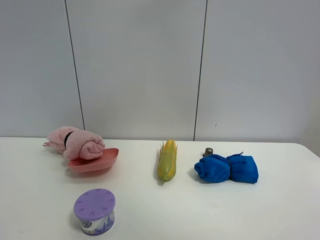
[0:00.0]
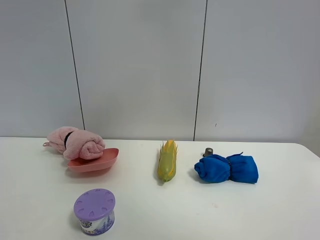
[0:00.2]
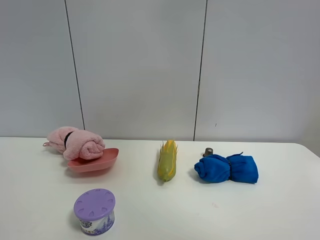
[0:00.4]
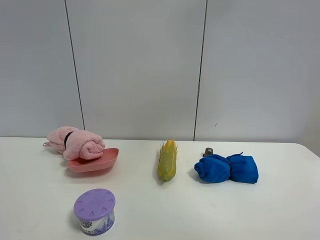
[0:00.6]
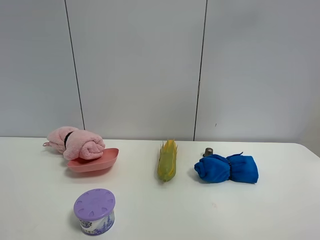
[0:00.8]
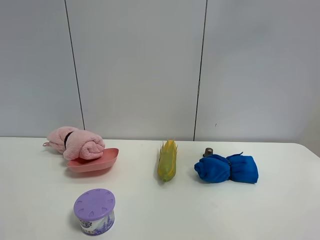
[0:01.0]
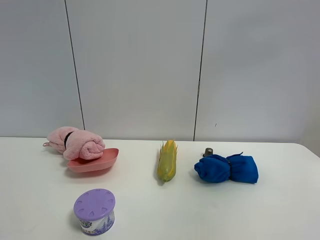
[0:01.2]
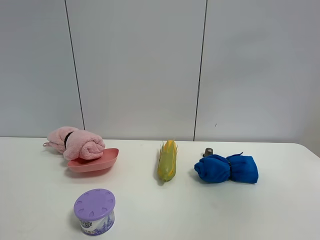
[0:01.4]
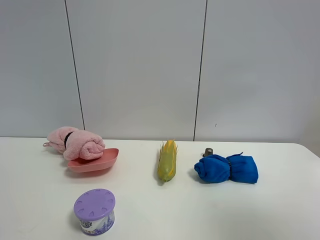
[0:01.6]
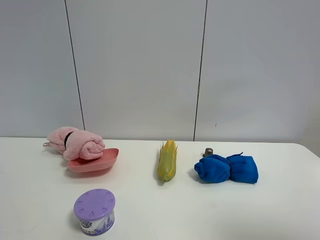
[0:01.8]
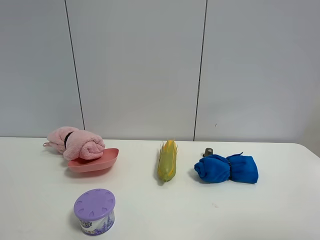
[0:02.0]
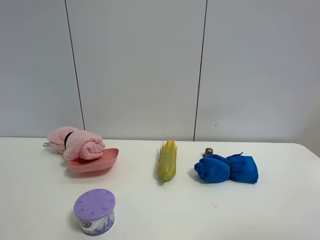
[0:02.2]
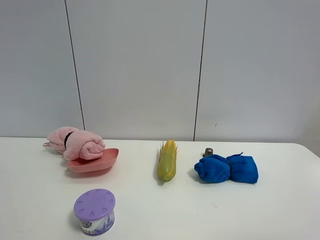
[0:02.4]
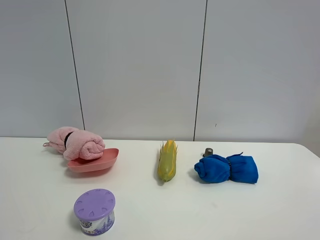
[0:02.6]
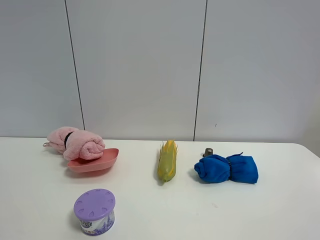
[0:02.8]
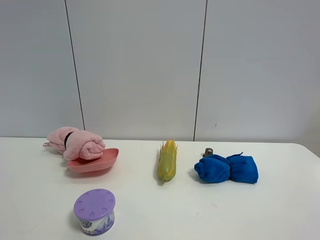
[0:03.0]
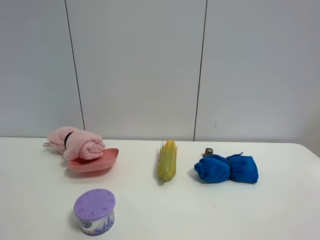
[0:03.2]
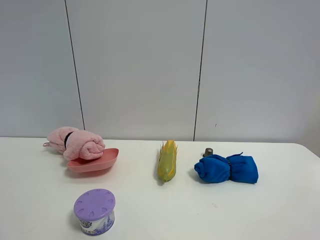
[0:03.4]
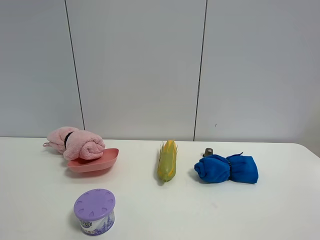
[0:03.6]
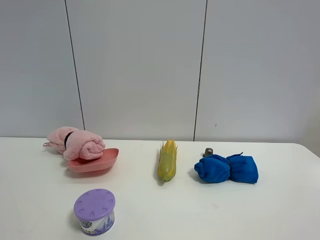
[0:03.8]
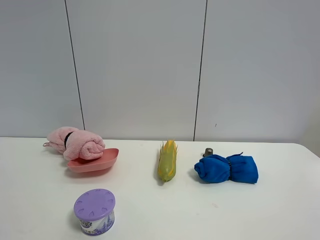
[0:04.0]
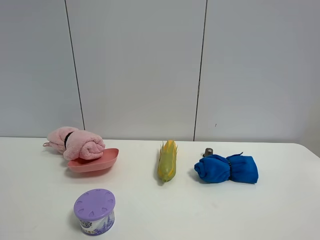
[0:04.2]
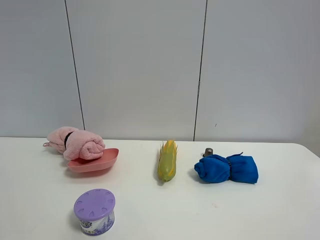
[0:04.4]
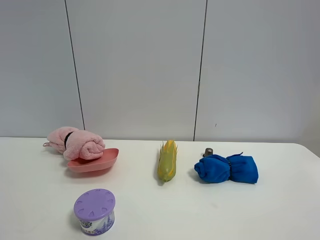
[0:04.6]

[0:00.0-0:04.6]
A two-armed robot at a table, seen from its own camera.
Task of the whole recording: the gripper move the object.
0:00.0 to 0:01.6: The right gripper heads to the right, backward and downward, covering approximately 30 cm.
0:01.6 to 0:03.0: The right gripper moves downward and backward, some 15 cm.

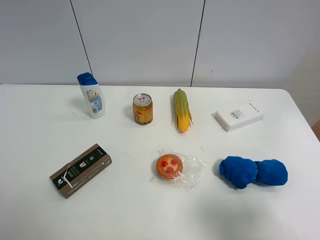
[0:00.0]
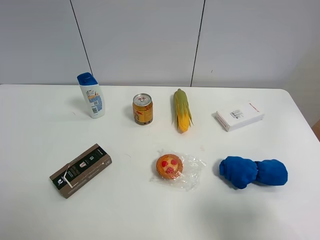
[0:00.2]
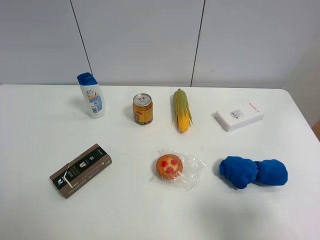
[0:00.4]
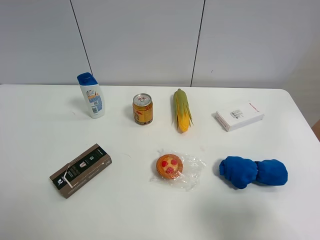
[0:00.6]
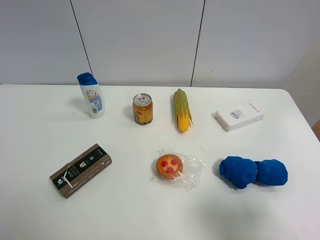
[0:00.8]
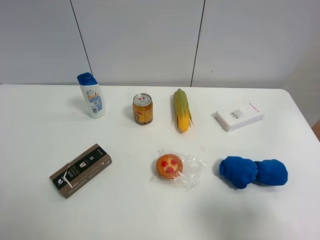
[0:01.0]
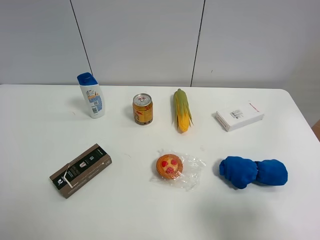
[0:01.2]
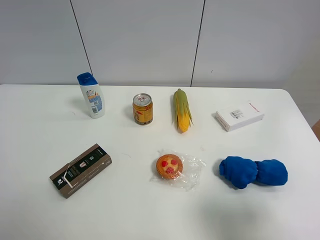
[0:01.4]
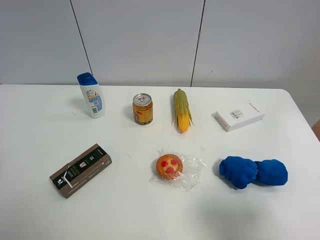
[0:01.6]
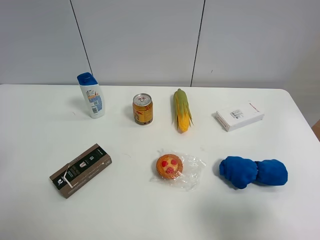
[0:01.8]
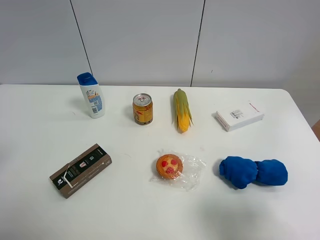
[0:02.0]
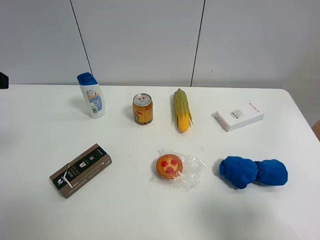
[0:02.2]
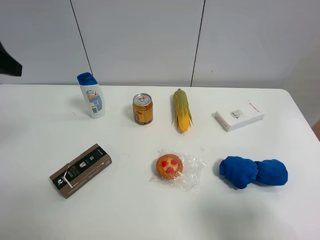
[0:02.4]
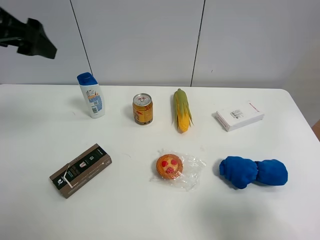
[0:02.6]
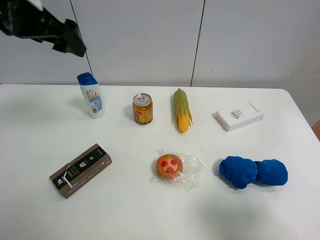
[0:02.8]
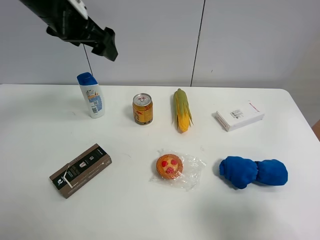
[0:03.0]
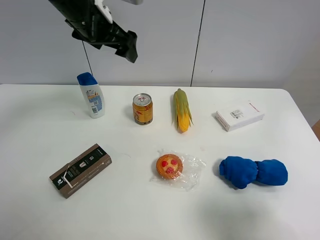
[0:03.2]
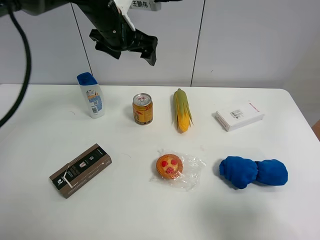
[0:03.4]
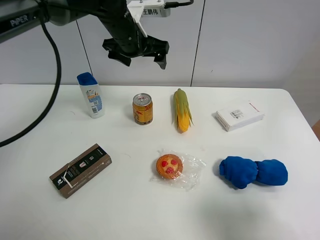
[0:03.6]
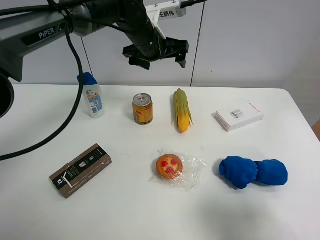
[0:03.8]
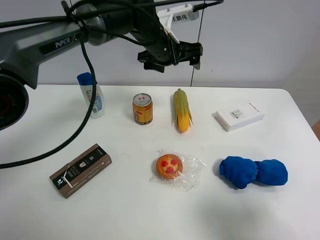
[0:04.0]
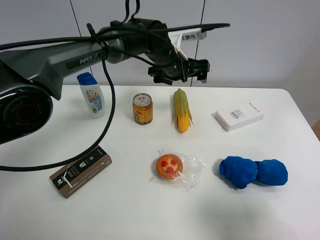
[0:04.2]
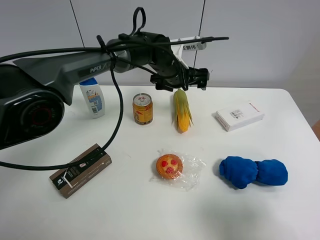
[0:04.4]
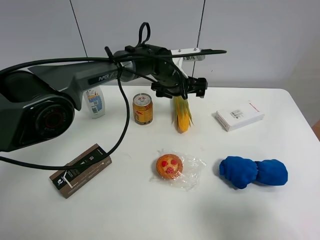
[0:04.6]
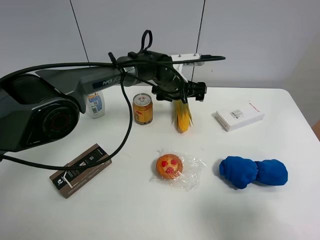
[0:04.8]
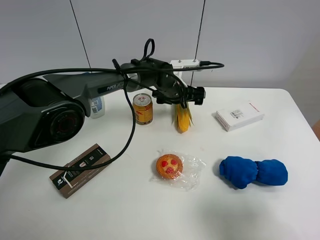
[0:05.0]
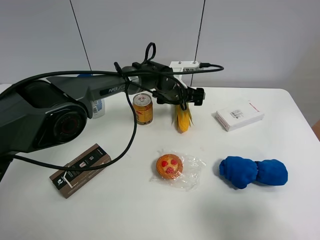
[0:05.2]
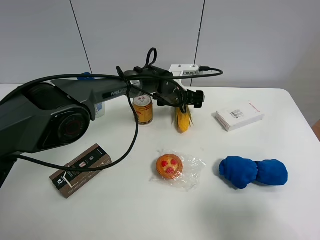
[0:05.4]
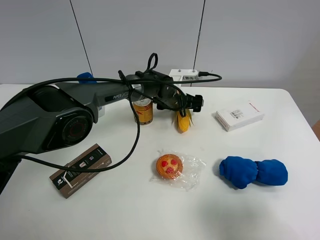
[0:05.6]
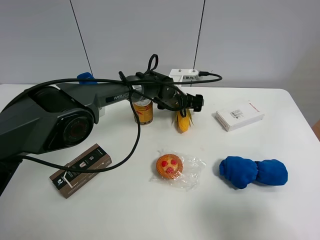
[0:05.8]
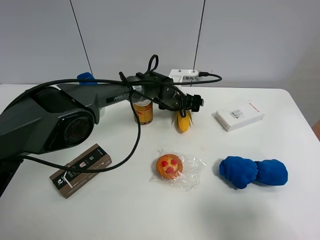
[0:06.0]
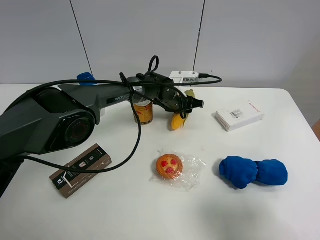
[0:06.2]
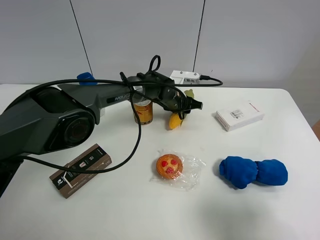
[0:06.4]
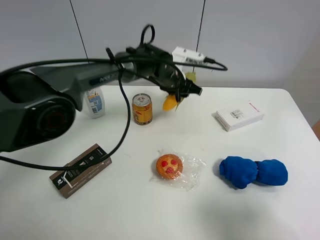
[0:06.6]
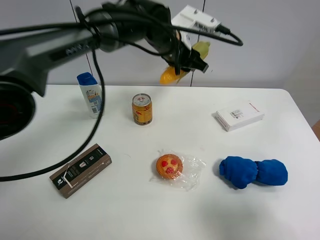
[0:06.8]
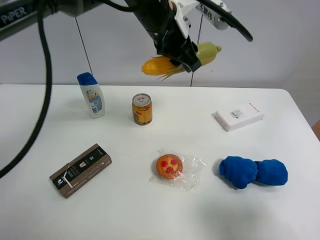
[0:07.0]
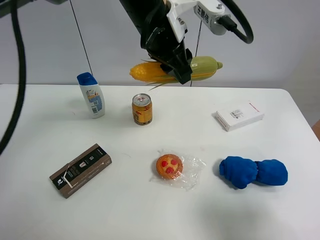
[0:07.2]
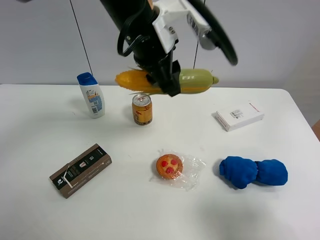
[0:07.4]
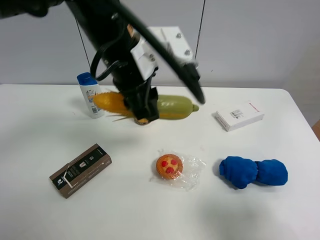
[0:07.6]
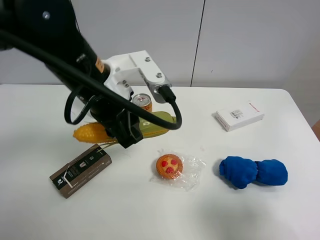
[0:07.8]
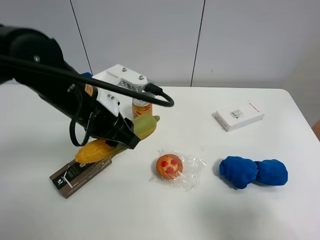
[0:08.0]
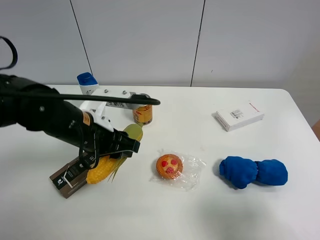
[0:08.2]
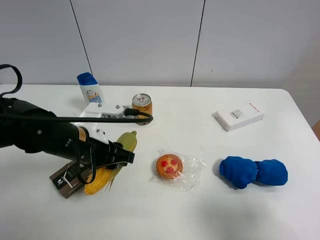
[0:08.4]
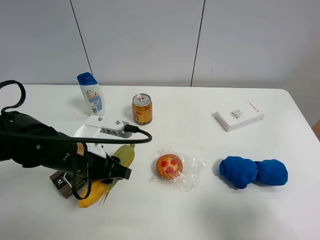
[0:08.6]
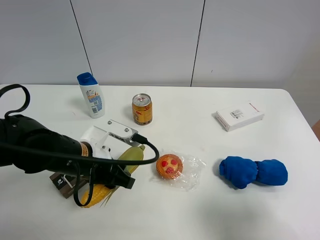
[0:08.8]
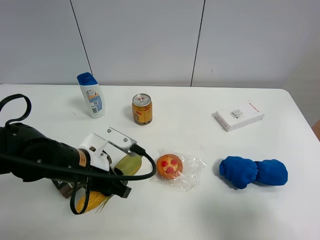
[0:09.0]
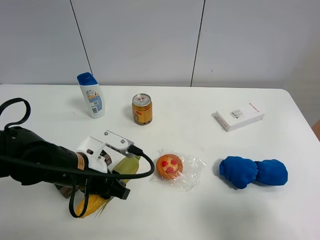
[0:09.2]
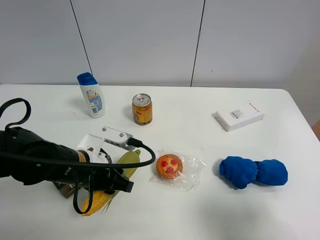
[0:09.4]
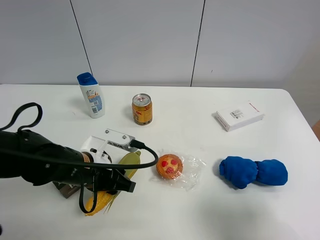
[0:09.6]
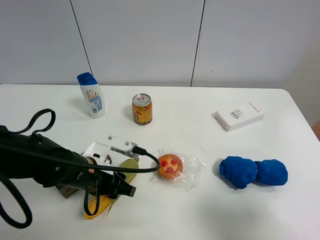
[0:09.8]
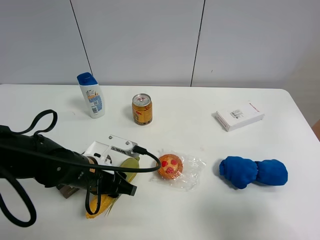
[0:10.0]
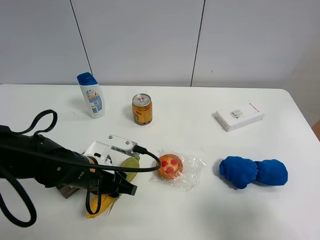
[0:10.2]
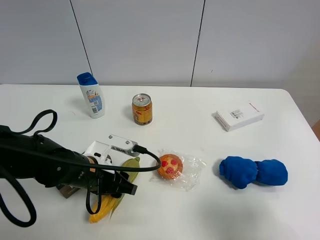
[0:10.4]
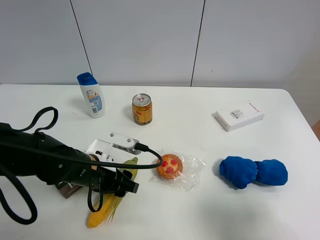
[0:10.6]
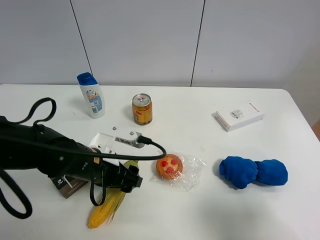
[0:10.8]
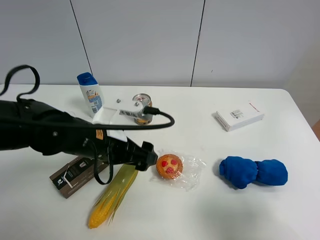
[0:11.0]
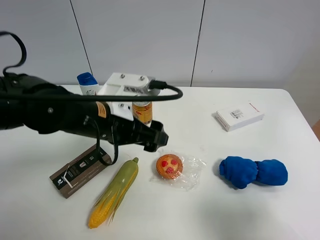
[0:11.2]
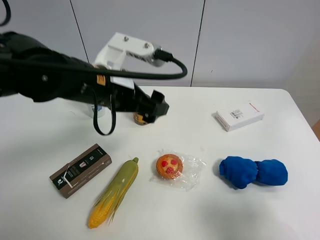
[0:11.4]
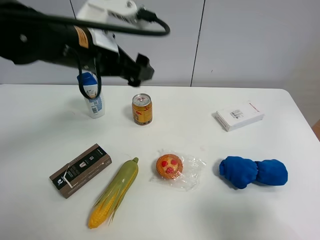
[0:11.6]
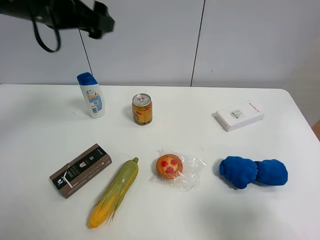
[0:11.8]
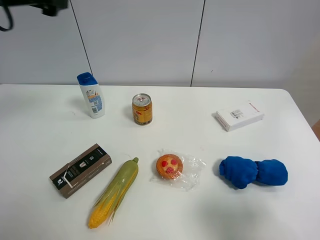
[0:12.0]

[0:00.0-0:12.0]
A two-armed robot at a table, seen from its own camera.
Task of the whole recording: the gripper move the object.
Step, 0:00.0 to 0:06.0: Grasp the corn with the left gripper.
Step, 0:06.2 to 0:10.8: Place the corn on the table with the left gripper.
0:01.6 to 0:03.0: The left gripper travels forward and to the right by approximately 30 cm.
0:03.0 to 0:04.4: The left gripper heads to the right and downward, covering approximately 25 cm.
0:04.4 to 0:06.0: The left gripper heads downward, covering some 10 cm, and closes.
0:06.0 to 0:07.6: The left gripper goes approximately 30 cm upward and backward, and closes.
0:07.6 to 0:09.0: The left gripper travels downward, to the left and backward by some 20 cm.
0:09.0 to 0:10.4: The grippers stay close to where they were, moving slightly.
0:10.4 to 0:12.0: The left gripper heads upward and forward, covering roughly 30 cm, and opens.

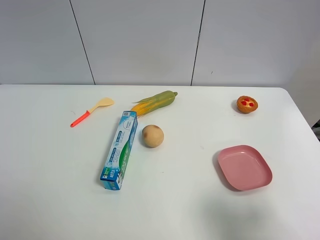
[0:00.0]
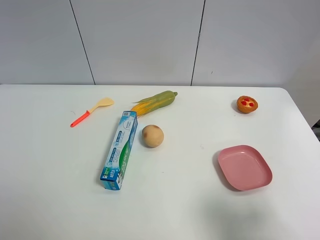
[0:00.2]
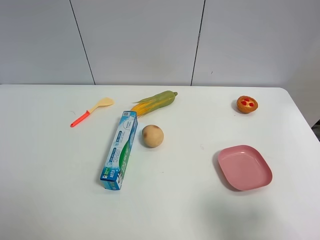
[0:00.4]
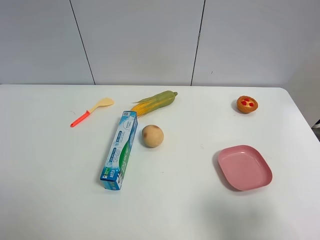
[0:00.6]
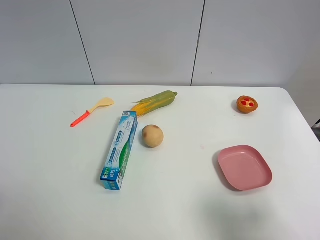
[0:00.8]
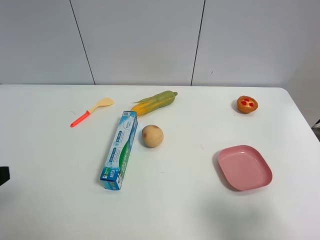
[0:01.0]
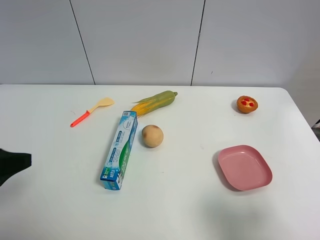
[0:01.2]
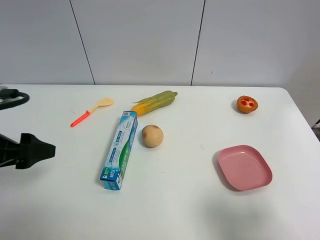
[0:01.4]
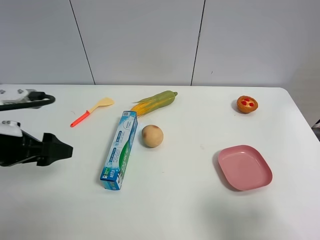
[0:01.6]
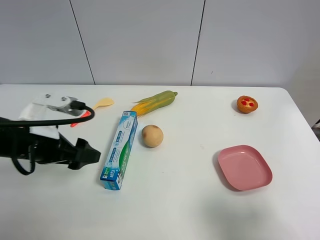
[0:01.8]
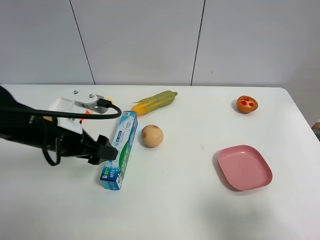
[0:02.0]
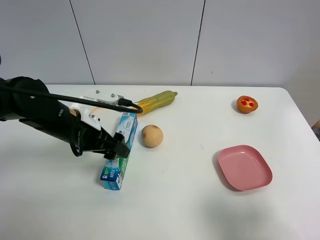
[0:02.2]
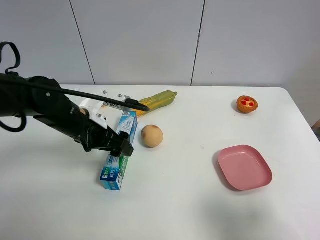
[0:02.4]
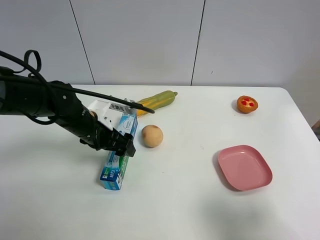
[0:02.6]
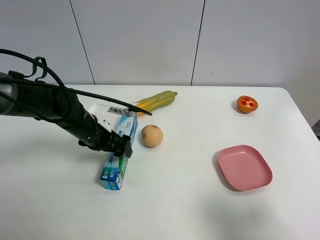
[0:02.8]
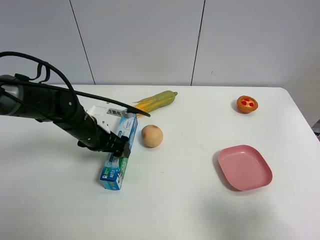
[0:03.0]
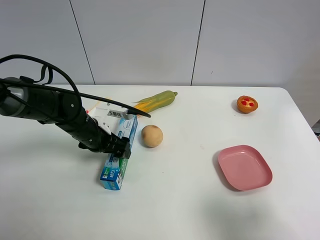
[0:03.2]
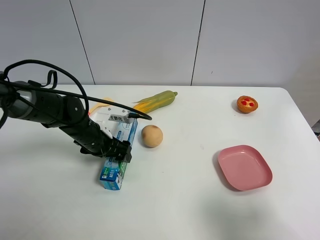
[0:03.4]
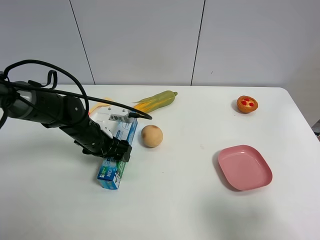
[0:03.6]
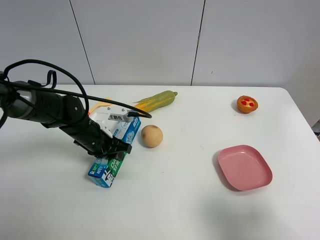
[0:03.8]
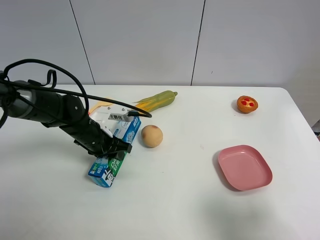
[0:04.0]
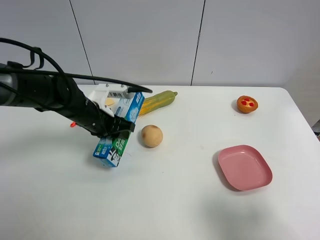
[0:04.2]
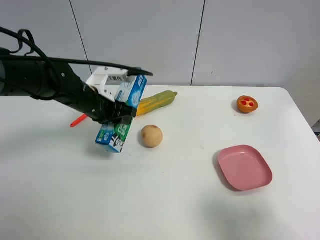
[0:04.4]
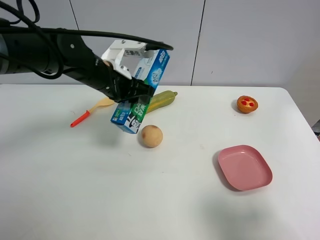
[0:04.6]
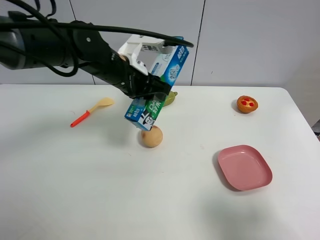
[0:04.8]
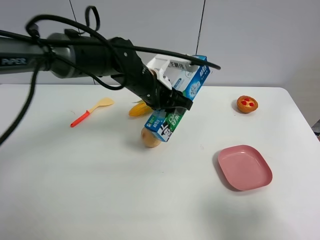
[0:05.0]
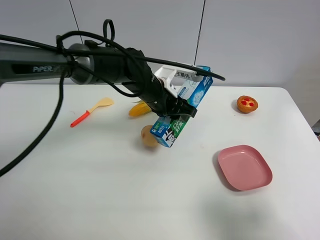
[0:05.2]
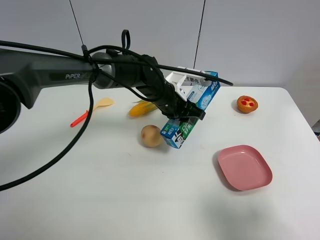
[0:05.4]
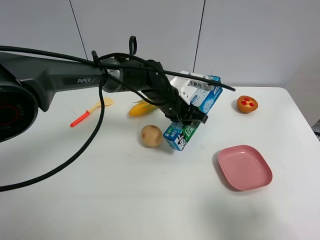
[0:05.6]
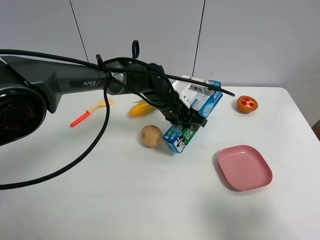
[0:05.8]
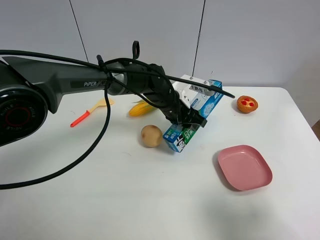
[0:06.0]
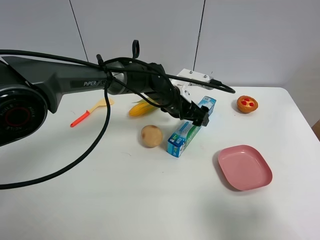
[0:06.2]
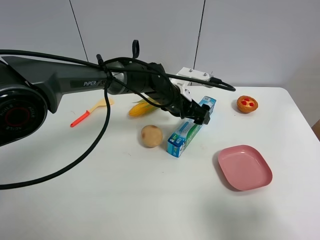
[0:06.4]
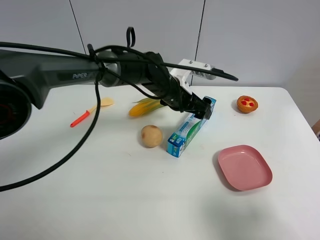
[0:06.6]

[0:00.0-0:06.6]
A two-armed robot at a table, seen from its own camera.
Task of the whole recording: the gripper move the object.
Step, 0:00.0 to 0:03.6: Grasp the toothpaste with the left gripper.
Step, 0:03.8 to 0:06.4: Place the toothpaste on the table with the left gripper.
0:00.0 to 0:01.6: The left gripper is displaced forward by approximately 20 cm.
0:01.6 to 0:03.2: The left gripper is displaced downward, forward and to the right by some 20 cm.
0:03.2 to 0:05.0: The left gripper heads to the right and upward, covering approximately 15 cm, and closes its fingers.
0:05.0 to 0:06.6: The left gripper shifts by roughly 5 cm, and opens its fingers.
